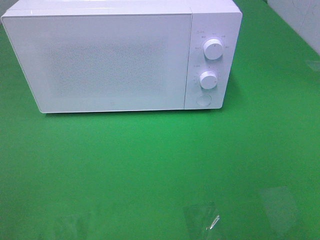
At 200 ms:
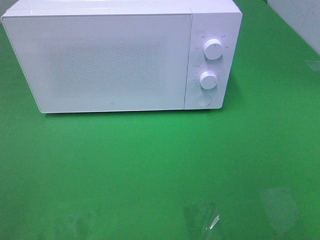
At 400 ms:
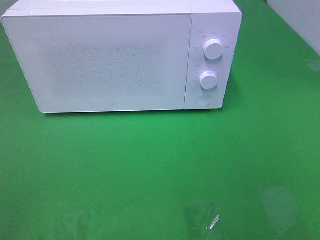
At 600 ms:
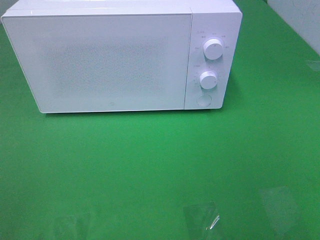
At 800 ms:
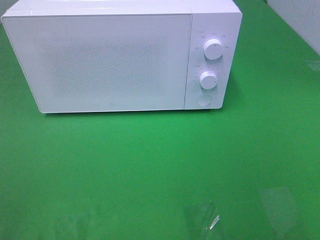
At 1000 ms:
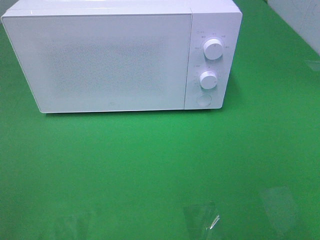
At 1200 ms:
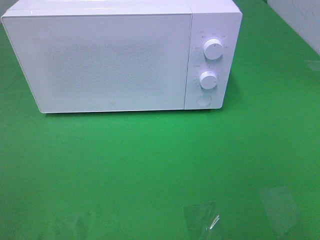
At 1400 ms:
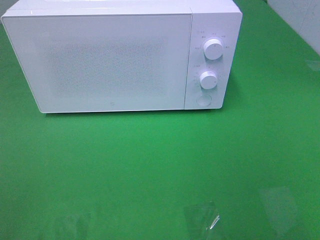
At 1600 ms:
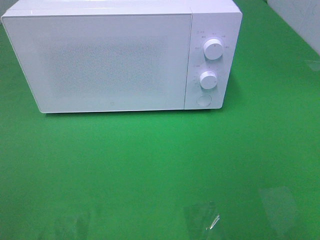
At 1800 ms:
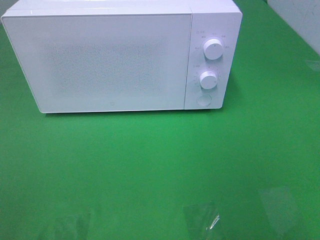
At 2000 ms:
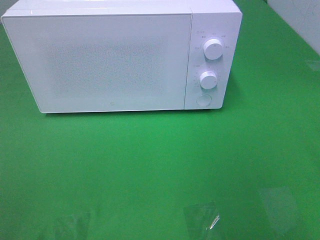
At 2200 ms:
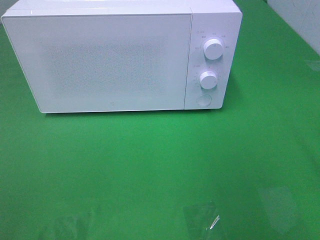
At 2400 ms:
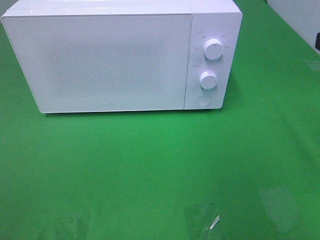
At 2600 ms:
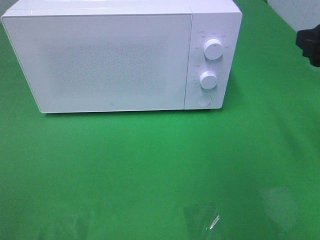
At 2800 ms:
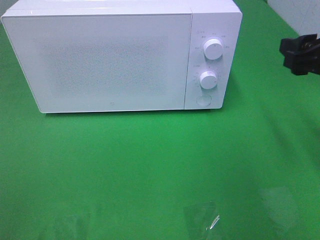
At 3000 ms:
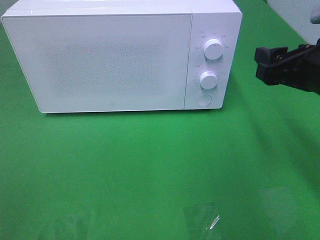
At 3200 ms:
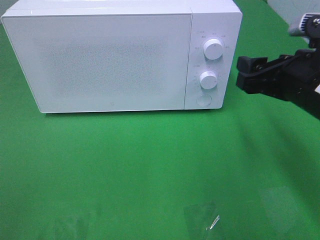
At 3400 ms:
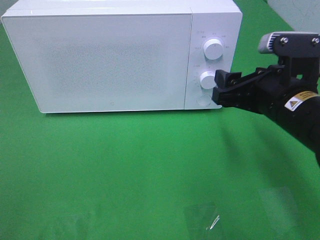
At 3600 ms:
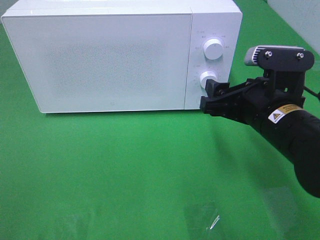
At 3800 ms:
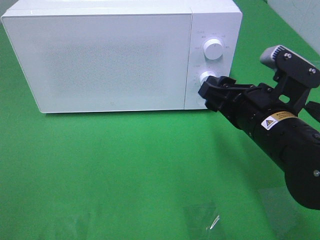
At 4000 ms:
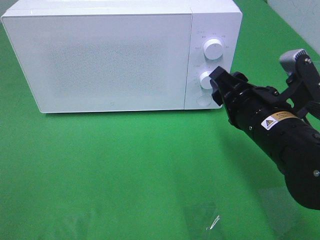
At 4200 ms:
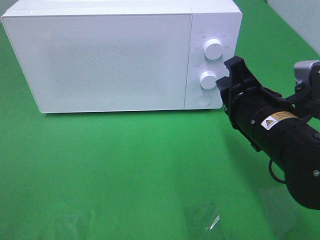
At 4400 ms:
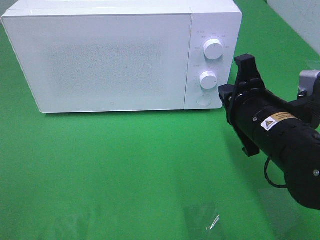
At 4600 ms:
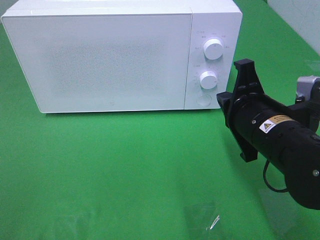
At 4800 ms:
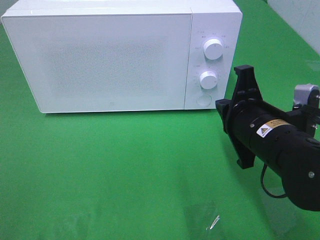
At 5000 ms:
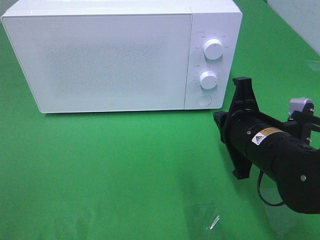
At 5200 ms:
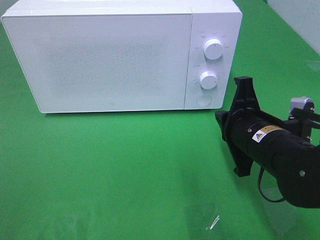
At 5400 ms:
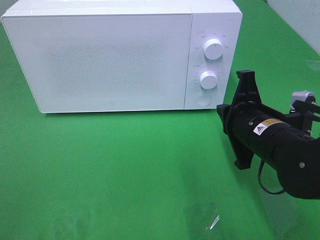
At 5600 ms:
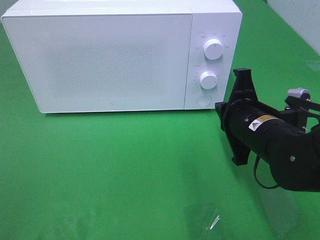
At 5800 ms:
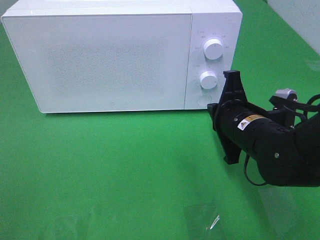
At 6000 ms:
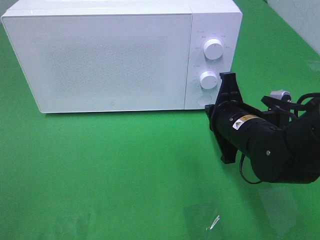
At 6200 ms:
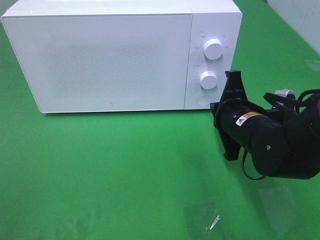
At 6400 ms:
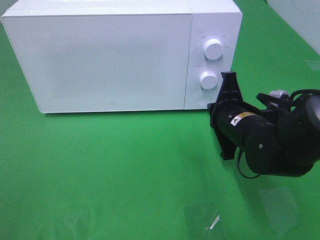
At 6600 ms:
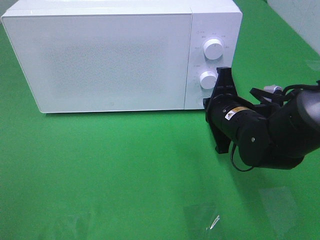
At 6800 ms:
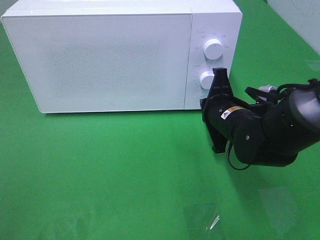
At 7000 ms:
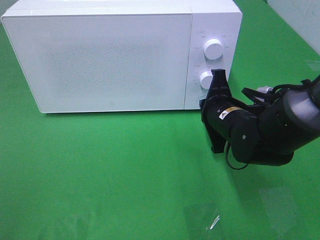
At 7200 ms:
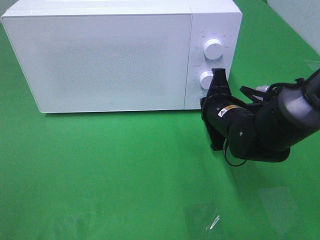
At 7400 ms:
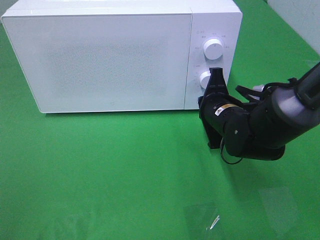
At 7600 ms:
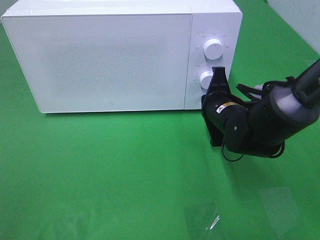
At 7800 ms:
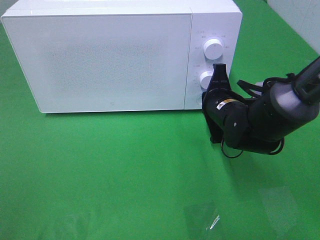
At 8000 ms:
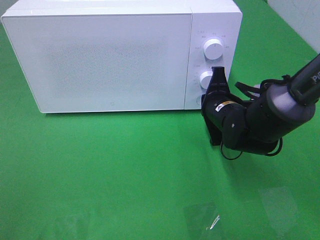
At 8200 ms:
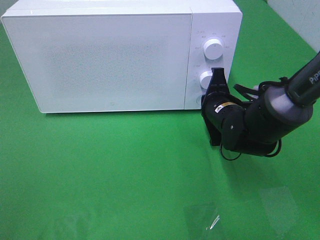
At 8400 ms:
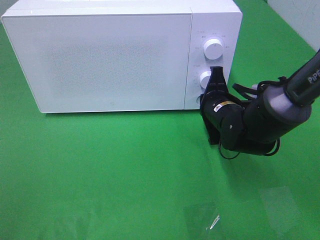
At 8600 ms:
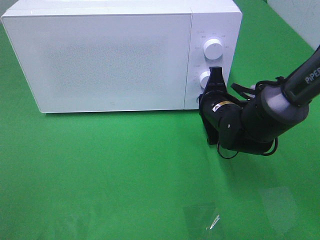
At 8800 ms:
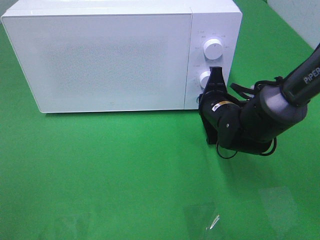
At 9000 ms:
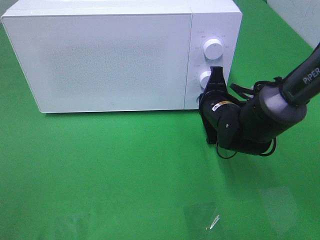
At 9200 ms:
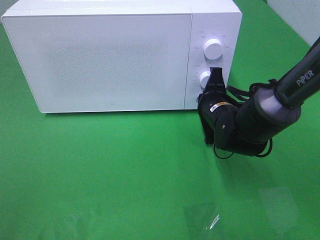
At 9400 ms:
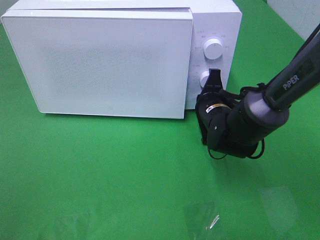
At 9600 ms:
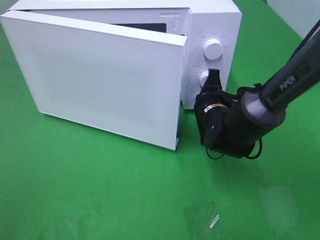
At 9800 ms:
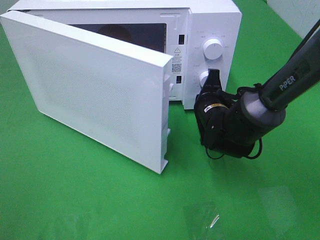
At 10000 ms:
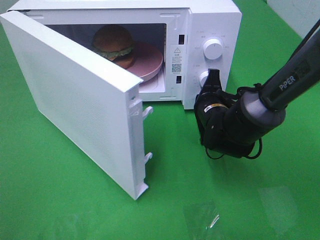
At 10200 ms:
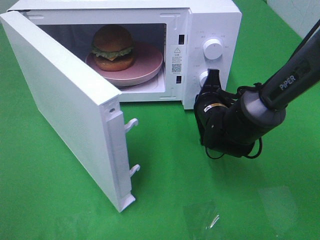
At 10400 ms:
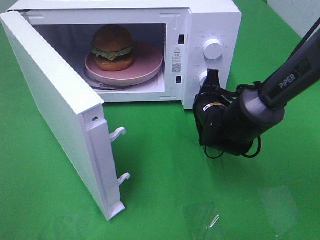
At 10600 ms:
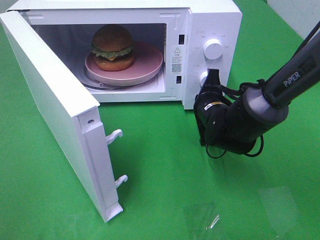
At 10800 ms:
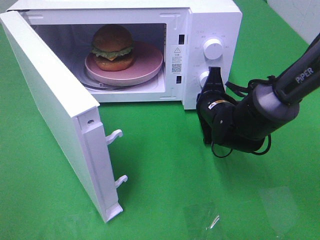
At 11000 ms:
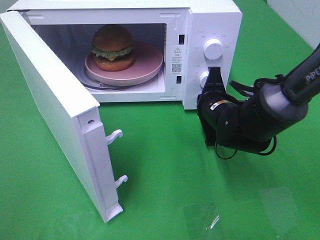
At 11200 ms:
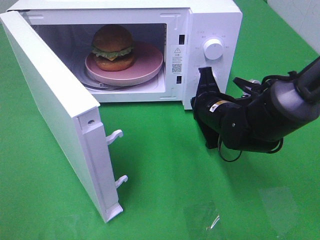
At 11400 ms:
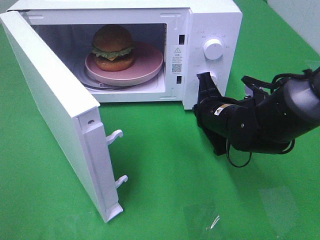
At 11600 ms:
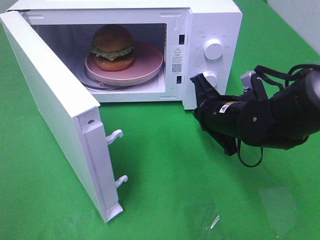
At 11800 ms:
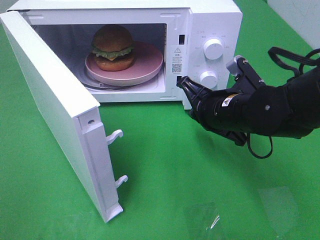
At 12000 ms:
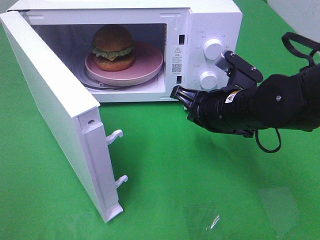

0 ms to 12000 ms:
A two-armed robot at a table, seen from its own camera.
Task of the whole recording: Heat the burger.
Step, 0 ms to 11000 ms: Right hand: press the switch.
1600 ms to 3000 ms: The right gripper goes roughly 20 cm forward and downward.
3000 ms to 4400 ms: The right gripper moves to the left and downward, roughly 10 cm, and closes up.
4400 ms to 6000 ms: The right gripper shifts by about 5 cm.
6000 ms to 7600 ms: The right gripper shifts some 5 cm forward.
7600 ms to 9000 ms: The grippers make only small movements.
10400 ms to 12000 ms: The right gripper is displaced upward and backward by about 10 cm.

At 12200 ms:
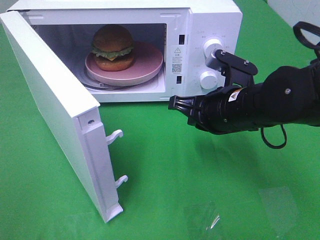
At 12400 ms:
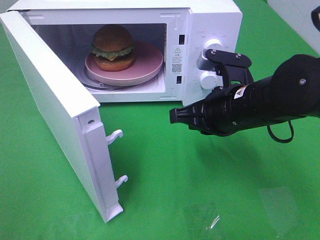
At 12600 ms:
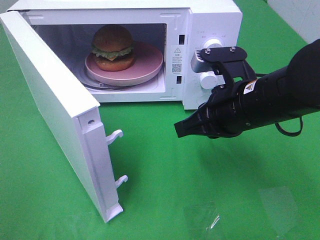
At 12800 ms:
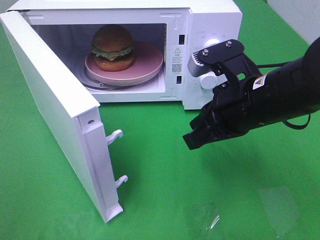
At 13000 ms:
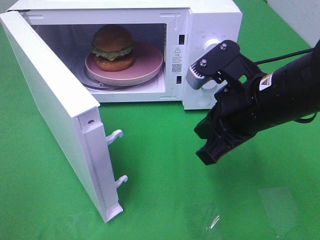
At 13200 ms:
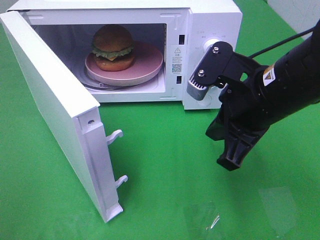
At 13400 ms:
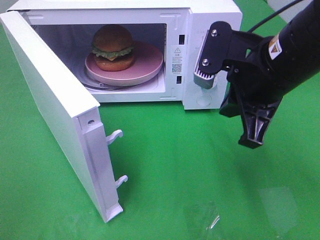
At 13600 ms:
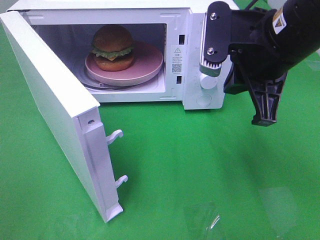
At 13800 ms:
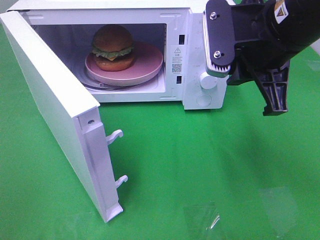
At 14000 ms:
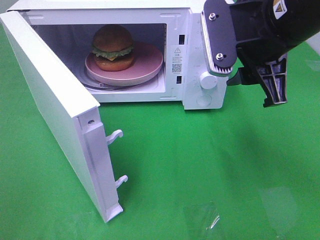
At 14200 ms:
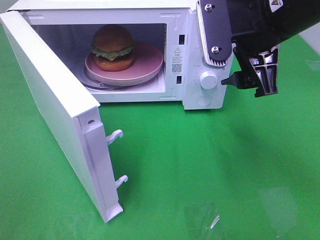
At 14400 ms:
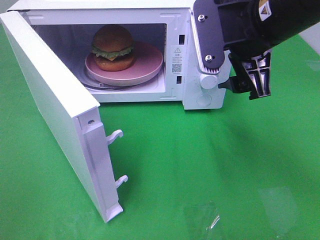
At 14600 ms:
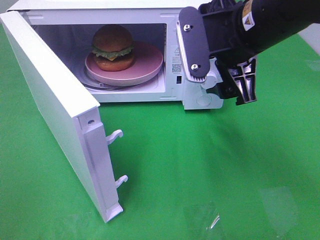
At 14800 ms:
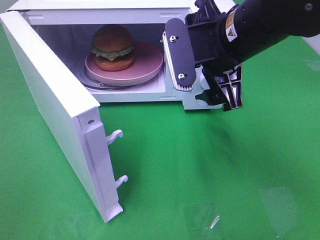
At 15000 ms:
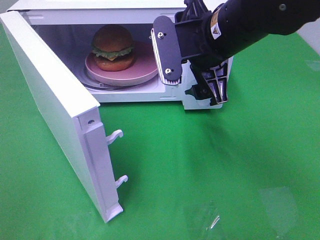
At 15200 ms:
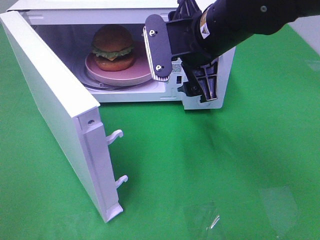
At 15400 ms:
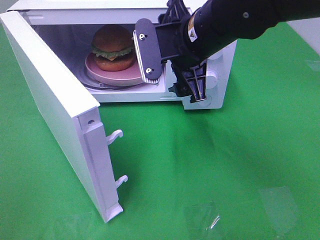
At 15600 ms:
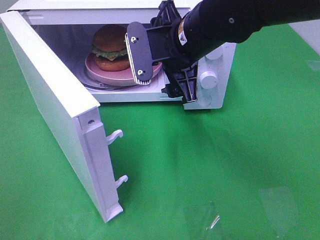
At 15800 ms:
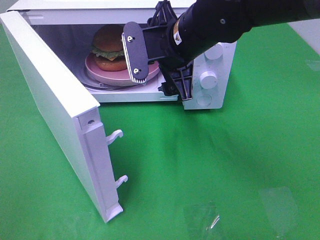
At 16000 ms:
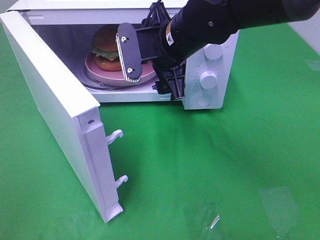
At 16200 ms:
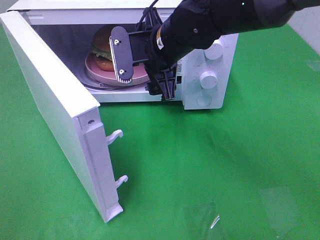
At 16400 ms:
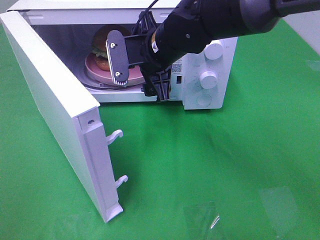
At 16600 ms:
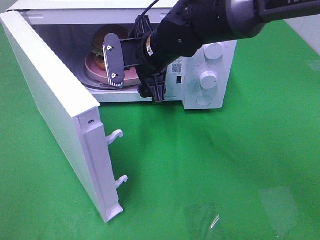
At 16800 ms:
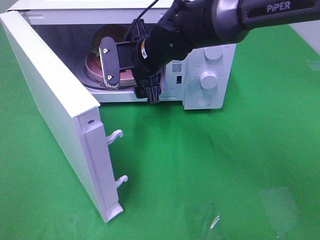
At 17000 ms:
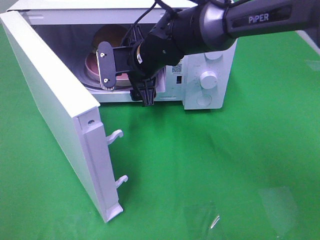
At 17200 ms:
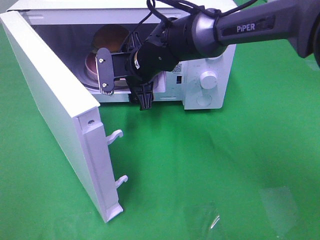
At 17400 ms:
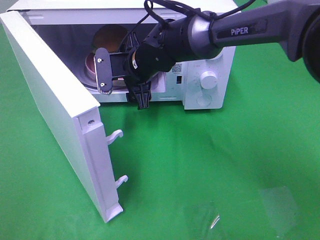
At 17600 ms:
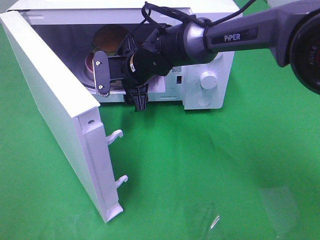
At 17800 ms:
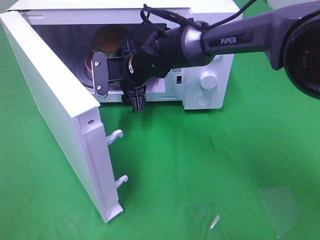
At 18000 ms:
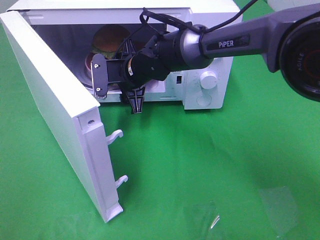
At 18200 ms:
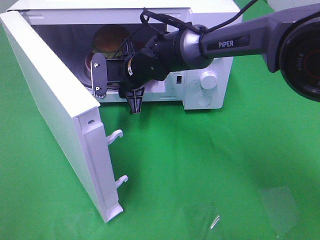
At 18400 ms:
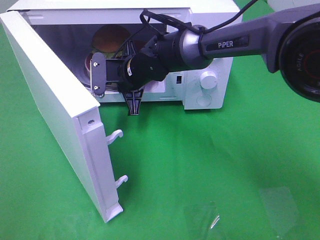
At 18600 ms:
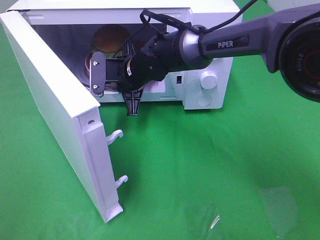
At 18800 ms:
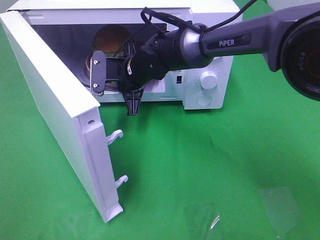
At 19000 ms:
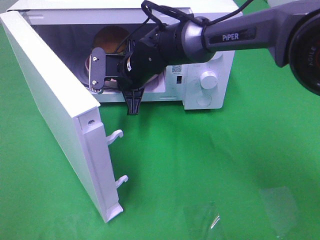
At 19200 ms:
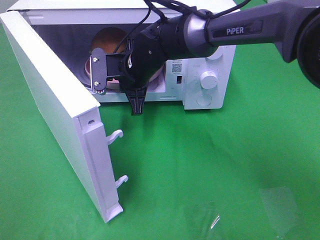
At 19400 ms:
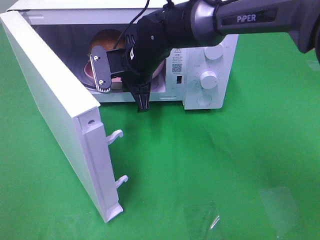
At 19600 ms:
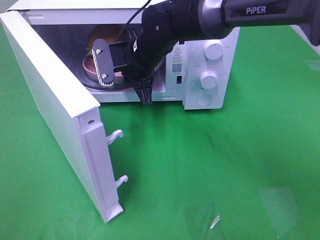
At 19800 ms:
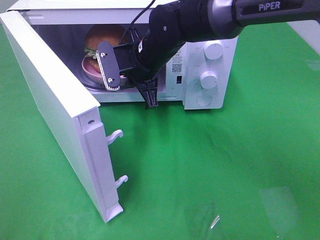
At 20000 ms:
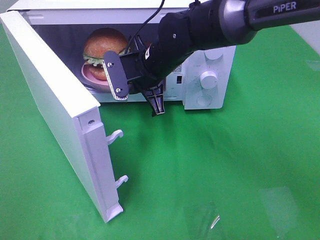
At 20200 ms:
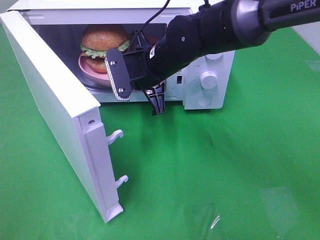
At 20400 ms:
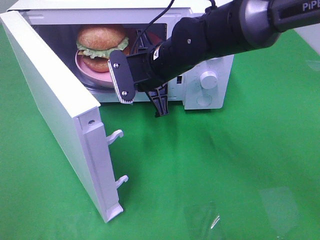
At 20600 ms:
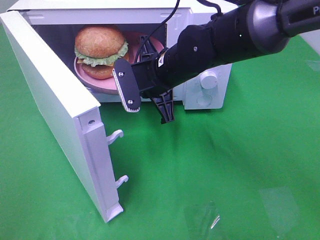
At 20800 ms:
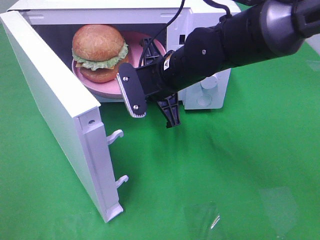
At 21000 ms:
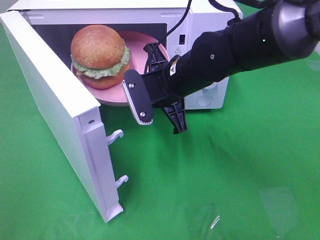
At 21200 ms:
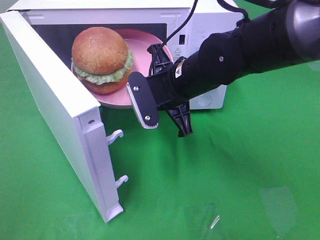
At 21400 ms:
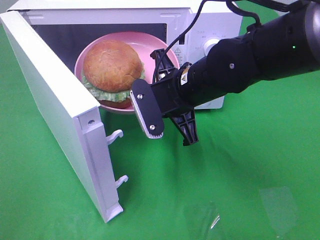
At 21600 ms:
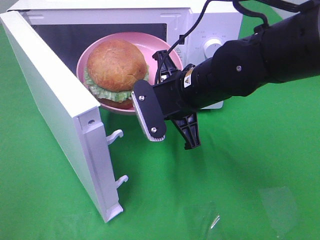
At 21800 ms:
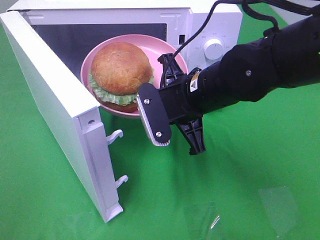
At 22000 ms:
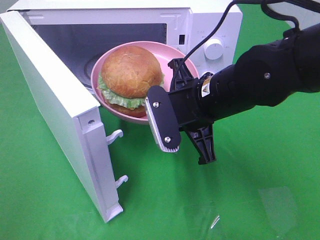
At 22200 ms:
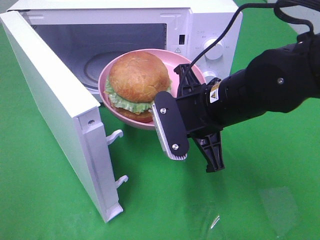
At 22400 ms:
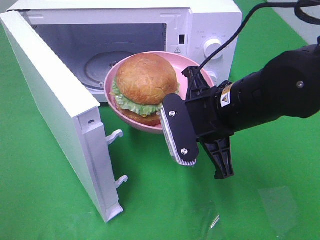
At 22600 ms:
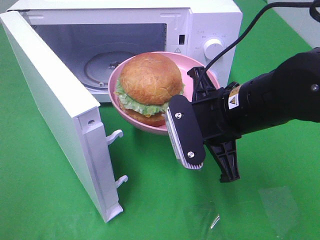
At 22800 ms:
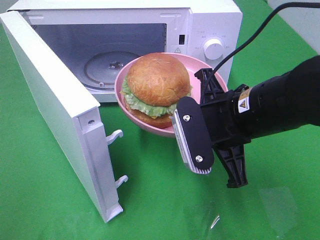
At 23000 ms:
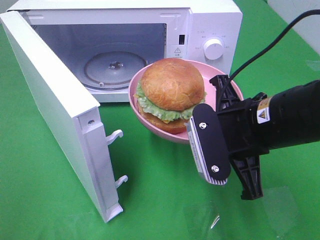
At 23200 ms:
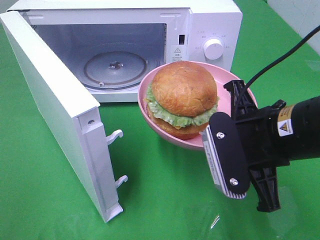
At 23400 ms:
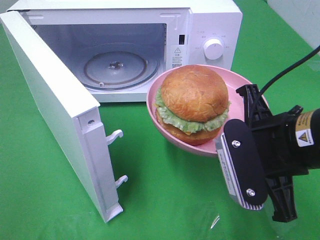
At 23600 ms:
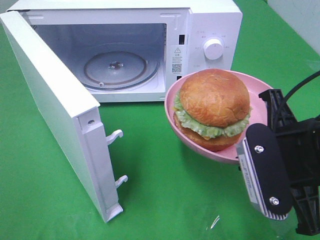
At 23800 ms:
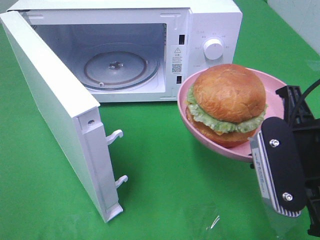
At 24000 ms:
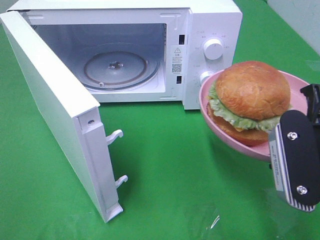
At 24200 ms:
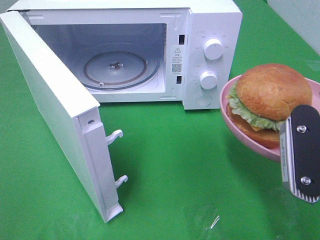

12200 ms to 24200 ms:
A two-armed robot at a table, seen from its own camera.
Task of the whole recording: Heat the burger.
Step, 12200 ms to 18600 ms: Right hand: grab the plate with the hamburger.
12200 ms to 13800 ms: The right gripper moves upward, about 15 cm.
13800 ms to 15200 ms: The right gripper heads to the left and forward, covering roughly 10 cm, and opens.
15200 ms to 16600 ms: The right gripper goes about 10 cm to the left, forward and downward.
16600 ms to 18200 ms: The right gripper goes roughly 5 cm downward, and closes its fingers.
18200 ms to 19800 ms: The right gripper shifts by approximately 5 cm, and closes up.
19800 ms to 21200 ms: The right gripper goes approximately 10 cm backward and to the right.
21200 ms to 22600 ms: The right gripper moves backward and to the right, some 10 cm.
22600 ms to 24200 ms: The right gripper shifts roughly 15 cm to the right and backward.
